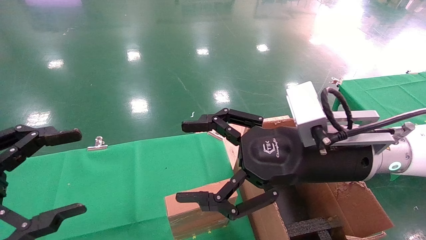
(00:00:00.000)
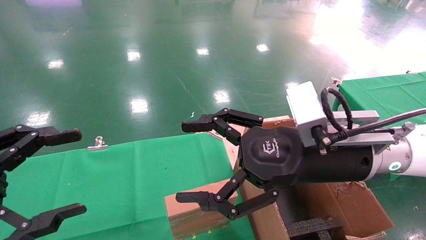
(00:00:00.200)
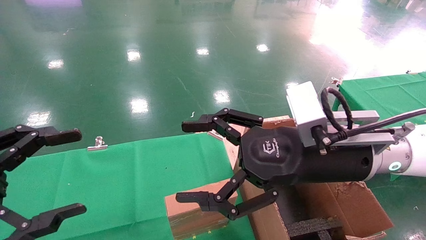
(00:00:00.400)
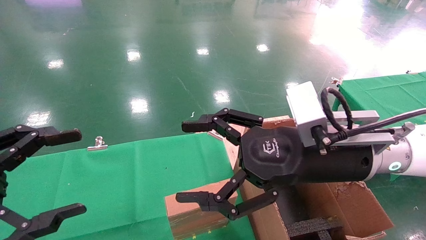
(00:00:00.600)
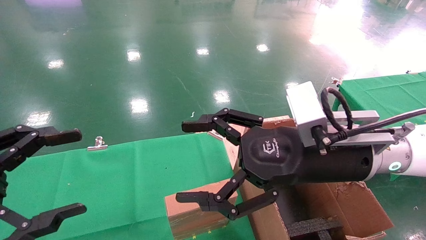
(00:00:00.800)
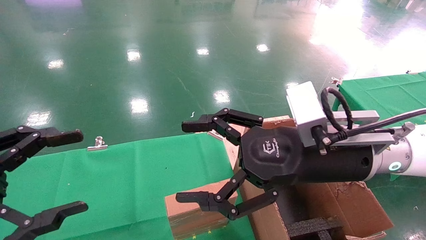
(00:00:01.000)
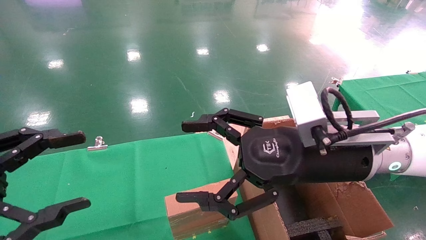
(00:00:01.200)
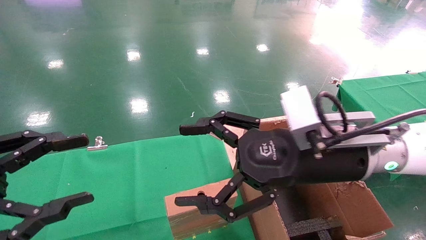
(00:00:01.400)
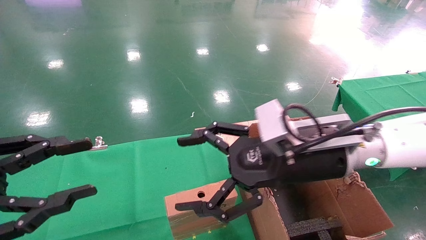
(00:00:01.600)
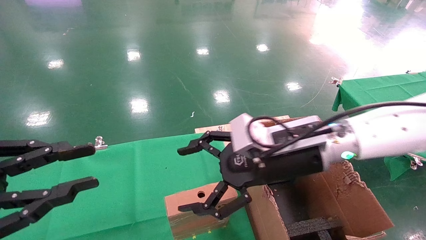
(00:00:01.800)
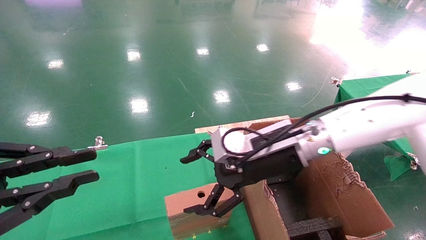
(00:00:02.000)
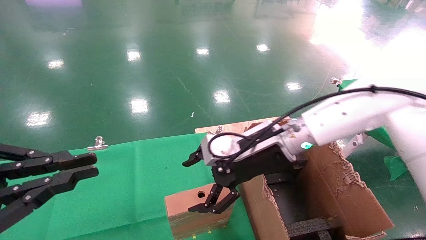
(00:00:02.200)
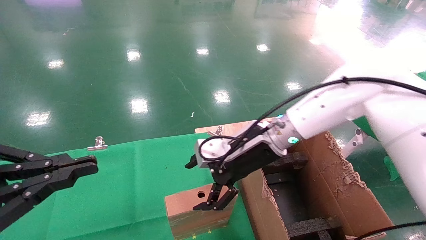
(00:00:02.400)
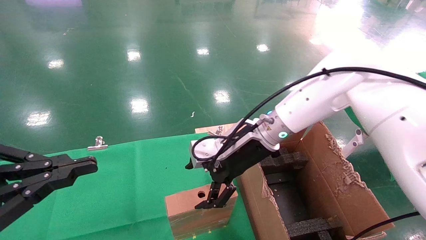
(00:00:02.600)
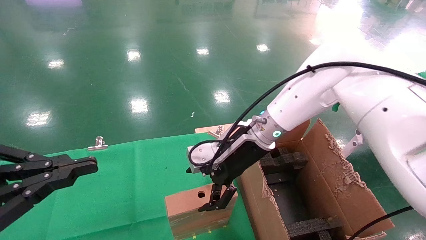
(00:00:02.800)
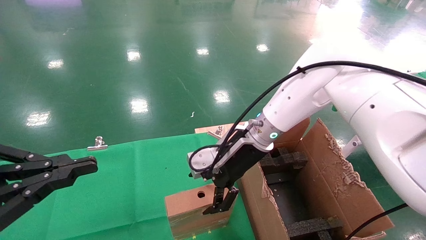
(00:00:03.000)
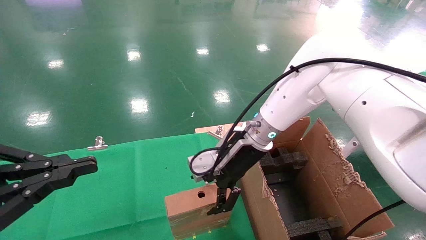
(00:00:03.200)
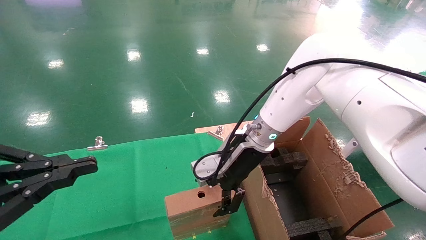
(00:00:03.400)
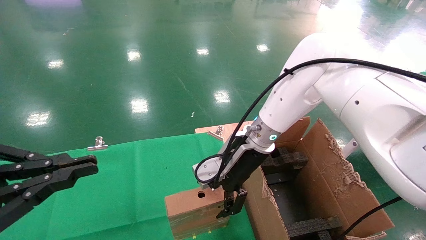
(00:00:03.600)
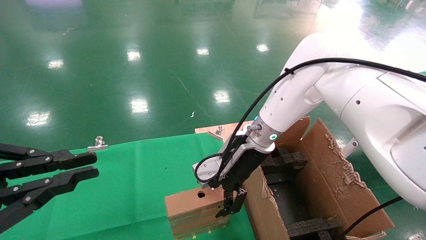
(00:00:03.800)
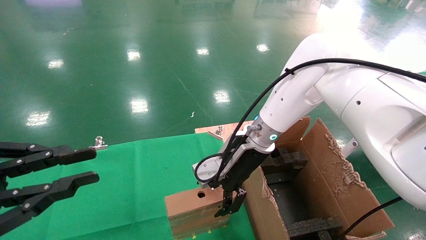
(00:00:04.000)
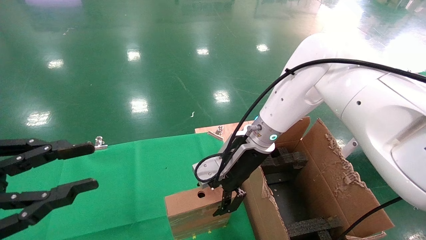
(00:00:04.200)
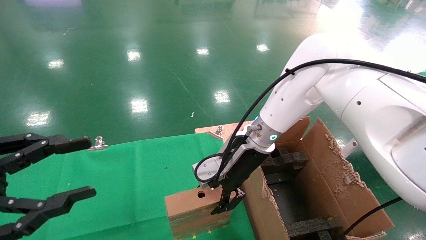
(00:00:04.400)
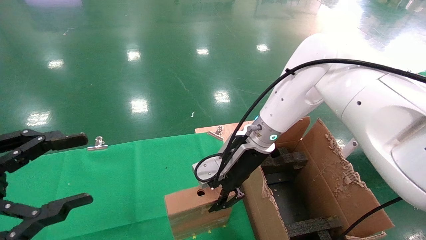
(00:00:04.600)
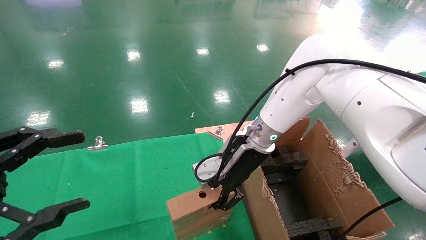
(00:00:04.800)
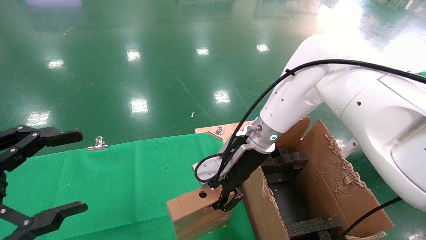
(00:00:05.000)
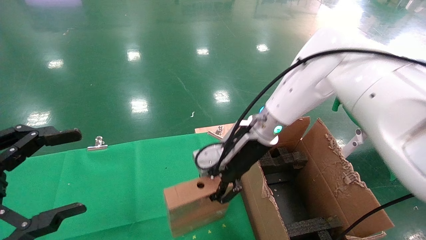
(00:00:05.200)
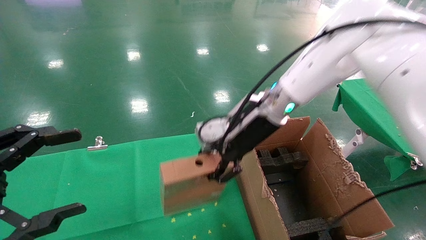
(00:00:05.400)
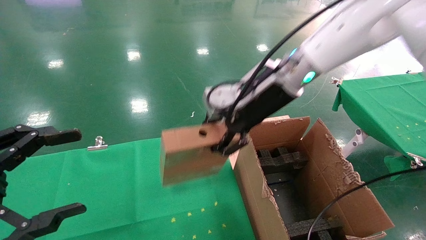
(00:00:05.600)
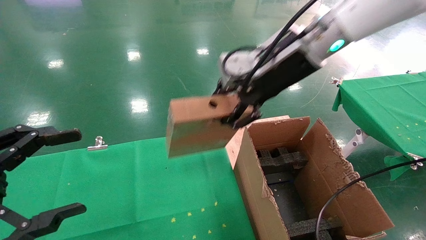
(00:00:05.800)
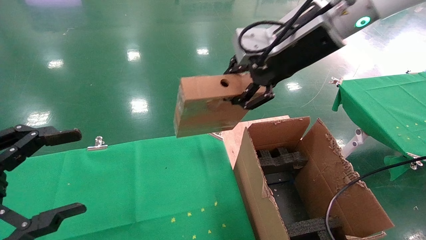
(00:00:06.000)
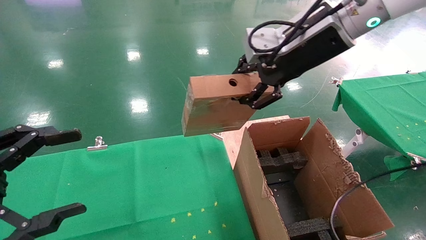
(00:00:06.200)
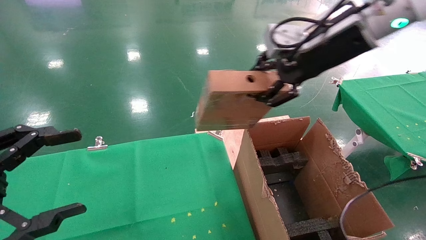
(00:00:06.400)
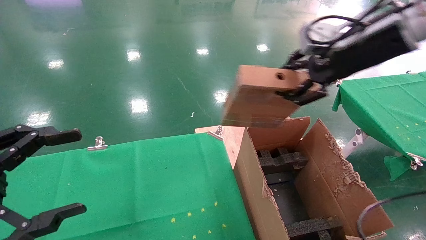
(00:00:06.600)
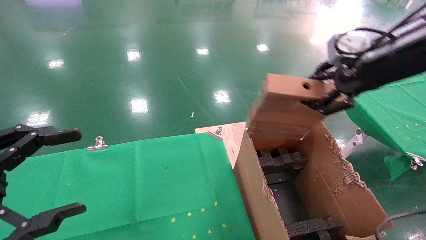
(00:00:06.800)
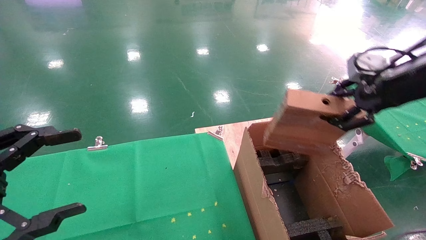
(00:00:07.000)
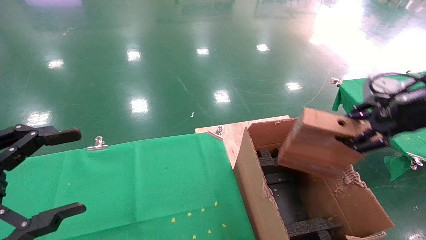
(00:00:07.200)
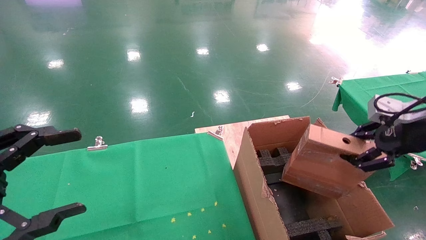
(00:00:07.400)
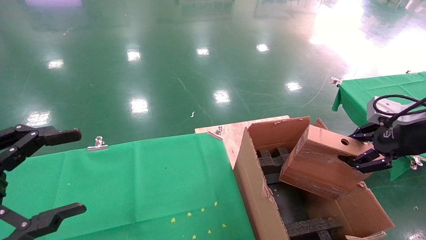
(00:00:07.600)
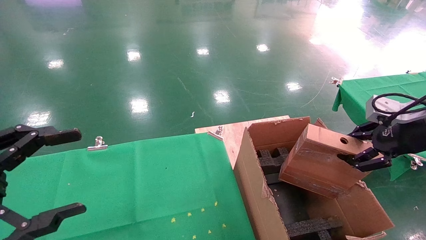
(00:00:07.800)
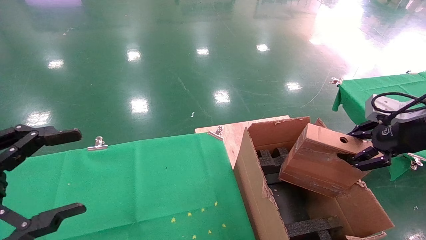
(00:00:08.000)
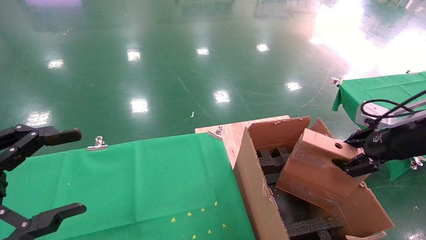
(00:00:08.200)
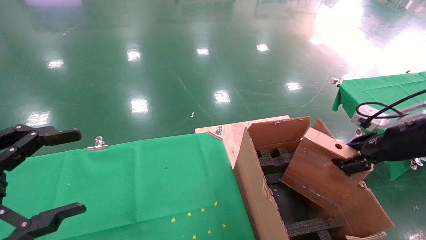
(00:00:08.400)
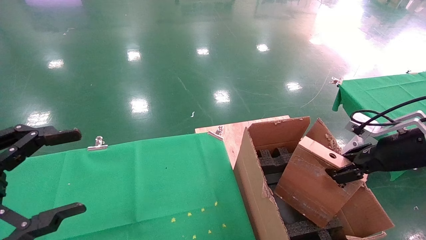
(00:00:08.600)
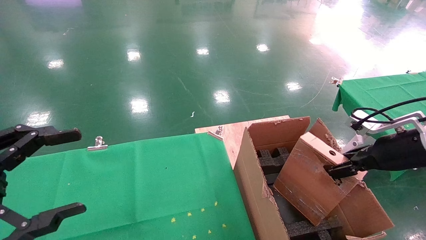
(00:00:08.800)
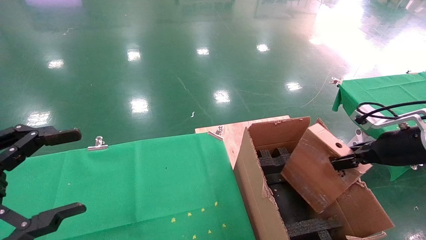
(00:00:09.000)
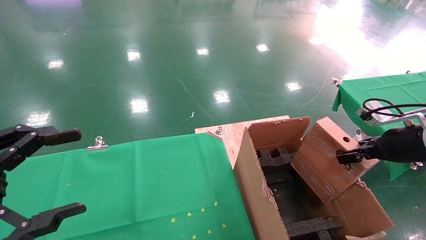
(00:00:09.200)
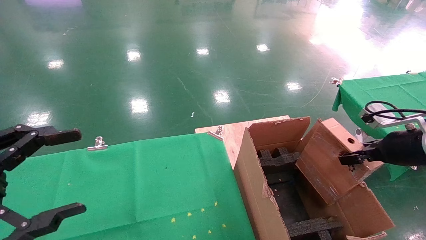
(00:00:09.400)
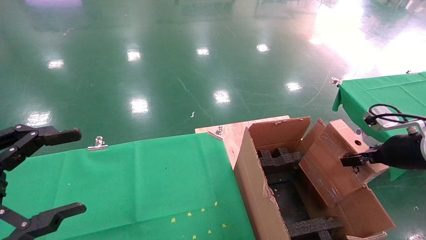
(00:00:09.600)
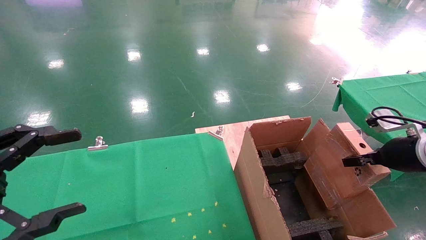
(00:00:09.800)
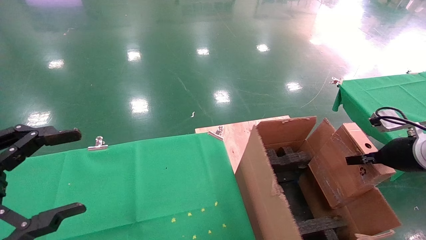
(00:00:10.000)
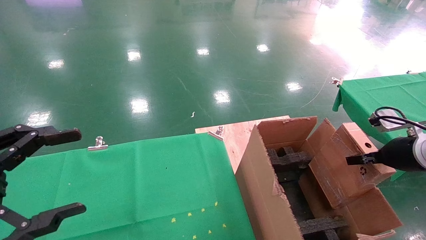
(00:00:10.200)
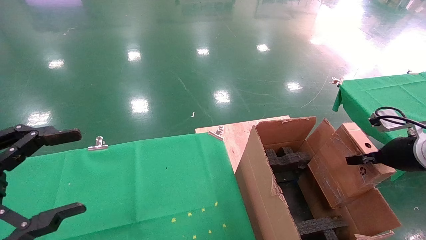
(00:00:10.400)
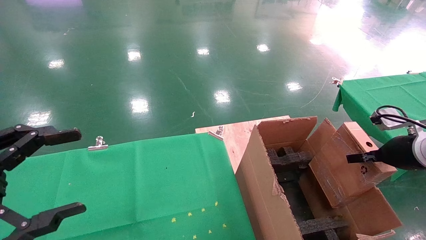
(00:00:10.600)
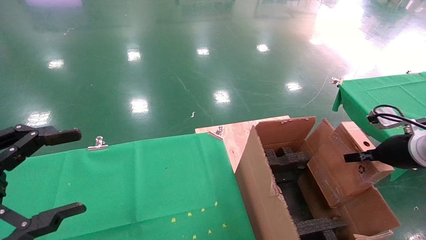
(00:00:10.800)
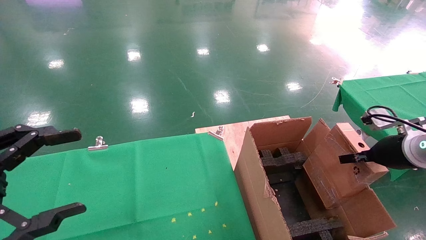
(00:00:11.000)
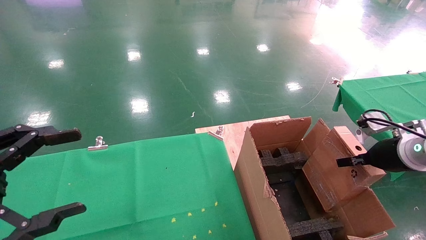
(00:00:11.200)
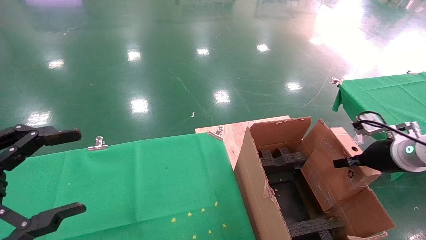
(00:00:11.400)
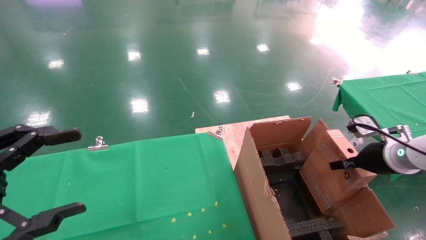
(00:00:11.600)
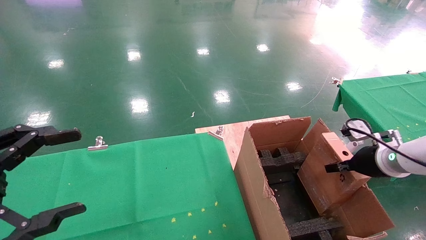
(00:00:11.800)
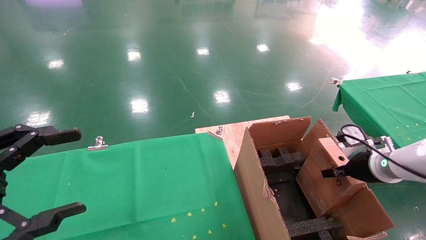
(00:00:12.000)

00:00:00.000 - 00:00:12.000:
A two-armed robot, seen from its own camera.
Task of the whole recording: using a robotic arm to pick up a cardboard box and palace it the carton.
Step, 00:00:01.200 - 00:00:04.800: Pick up the mouse and the power cord paper box.
00:00:00.000 - 00:00:01.600: The left gripper closes.
00:00:01.600 - 00:00:03.000: The left gripper closes; the right gripper goes some 15 cm forward and to the left.
00:00:03.000 - 00:00:04.400: The left gripper opens.
00:00:04.400 - 00:00:06.000: The right gripper goes some 20 cm upward and to the right, and closes its fingers. Meanwhile the left gripper opens its fingers.
00:00:06.000 - 00:00:07.600: The right gripper is displaced to the right and downward by some 25 cm.
00:00:07.600 - 00:00:09.000: The right gripper goes roughly 5 cm downward.
00:00:10.400 - 00:00:12.000: The right gripper travels downward by about 5 cm.

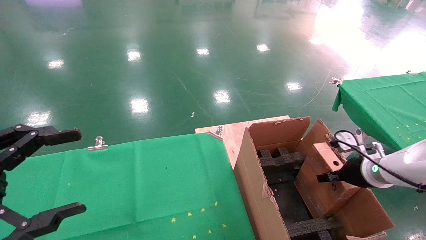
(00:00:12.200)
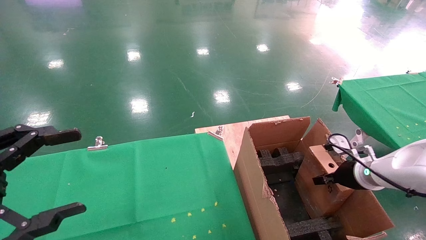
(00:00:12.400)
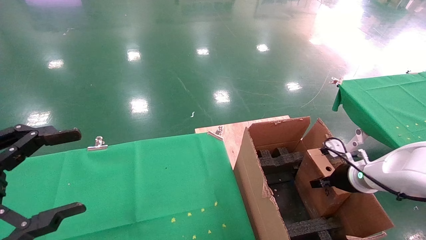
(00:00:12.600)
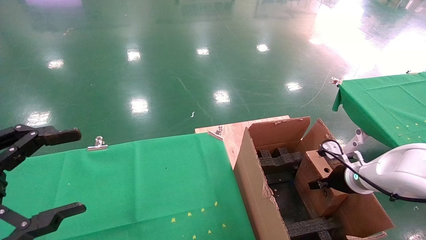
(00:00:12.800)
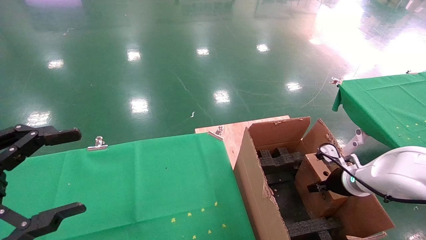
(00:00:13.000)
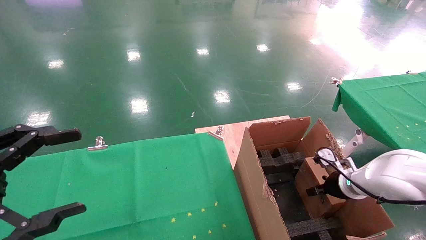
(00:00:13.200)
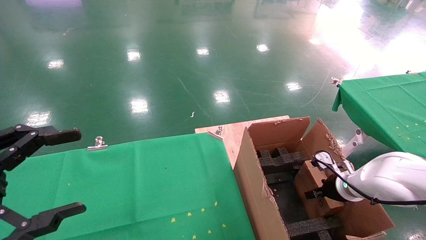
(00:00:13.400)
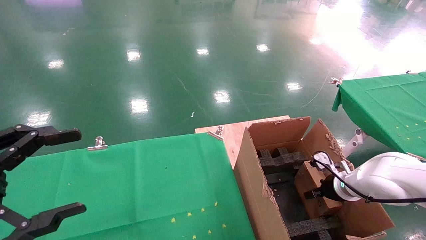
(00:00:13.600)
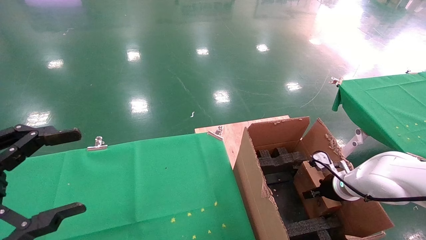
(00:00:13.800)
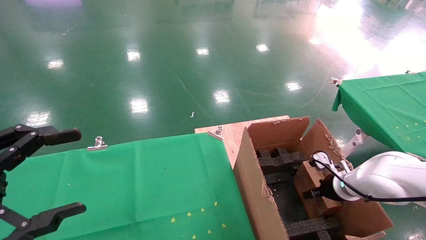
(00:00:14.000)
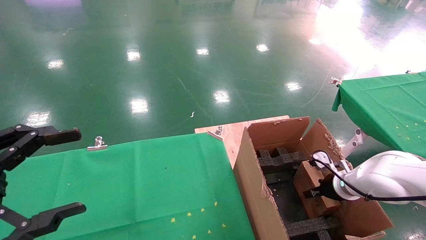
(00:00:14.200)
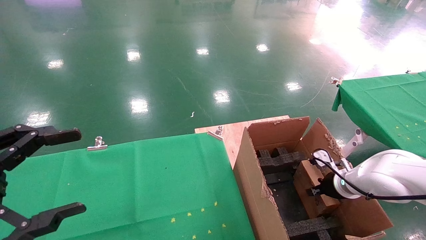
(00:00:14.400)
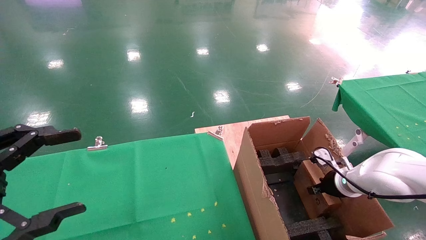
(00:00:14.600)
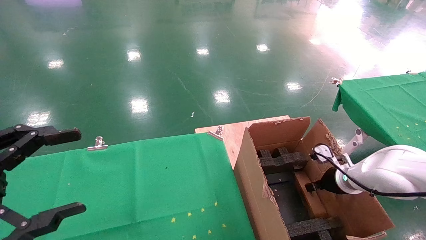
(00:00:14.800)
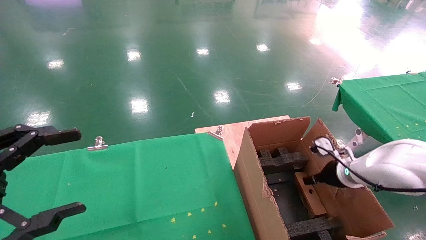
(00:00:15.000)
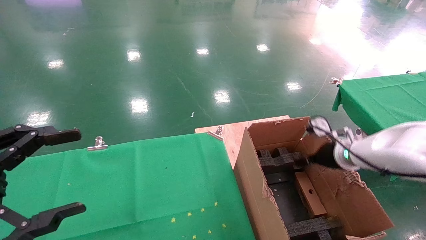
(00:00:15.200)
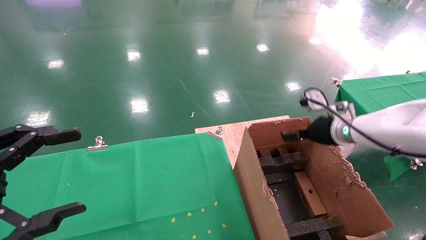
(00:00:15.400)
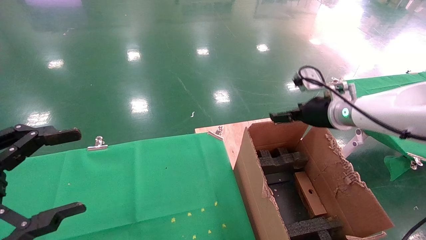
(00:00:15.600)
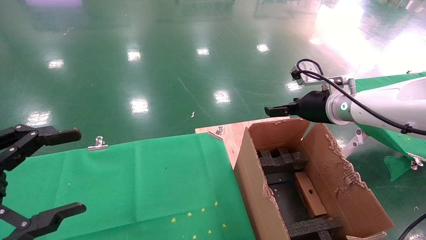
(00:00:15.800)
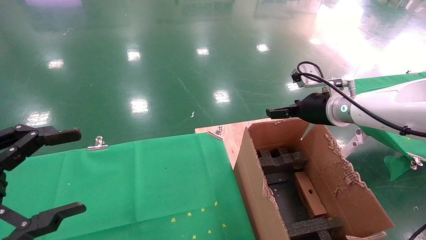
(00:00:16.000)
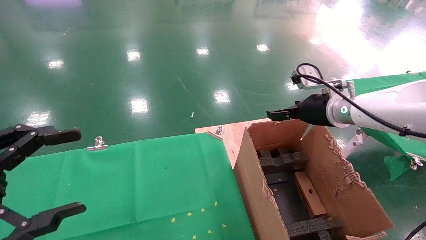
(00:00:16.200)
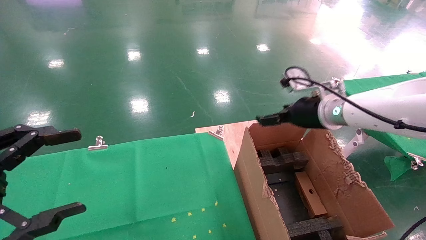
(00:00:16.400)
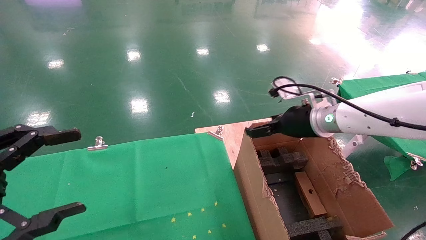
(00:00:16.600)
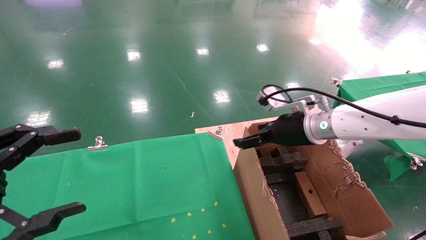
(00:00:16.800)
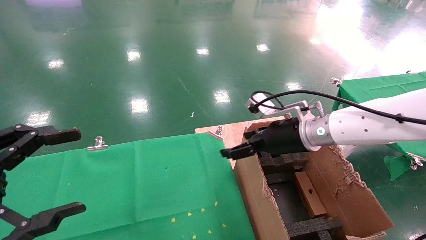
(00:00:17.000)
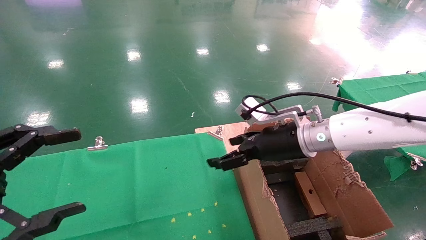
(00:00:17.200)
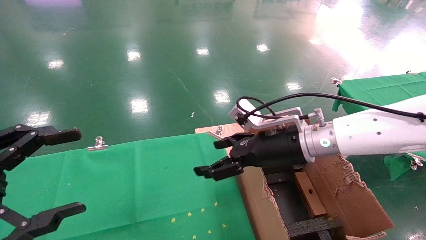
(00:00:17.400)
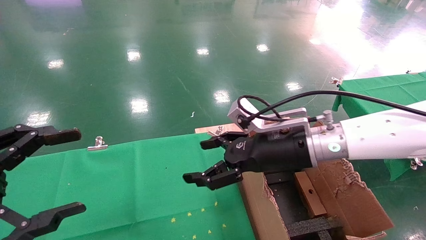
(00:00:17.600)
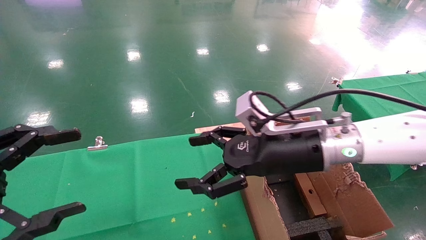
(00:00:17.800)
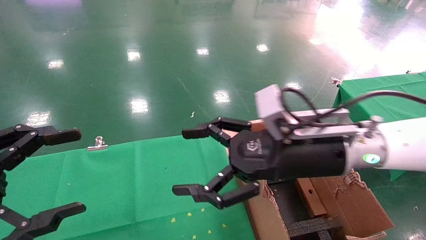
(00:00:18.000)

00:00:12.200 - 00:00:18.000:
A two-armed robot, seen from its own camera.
Task of the whole recording: using a robotic arm to pick up a cardboard box and palace it the carton.
Step, 00:00:12.200 - 00:00:15.400: Place the mouse and the power cord paper box into the container.
00:00:12.200 - 00:00:13.600: The right gripper heads downward, covering about 10 cm.
00:00:13.600 - 00:00:15.000: The right gripper is displaced upward by about 5 cm, and opens up.
00:00:15.000 - 00:00:16.600: The right gripper heads upward and to the left, covering about 15 cm.
00:00:16.600 - 00:00:18.000: The right gripper shifts roughly 15 cm backward and to the left.
